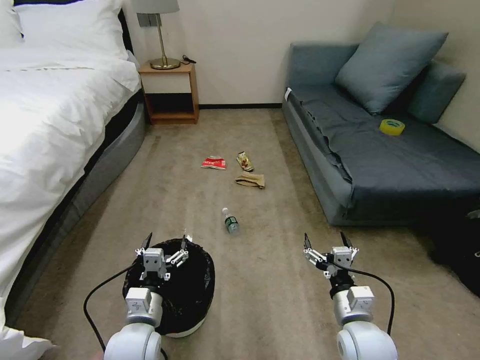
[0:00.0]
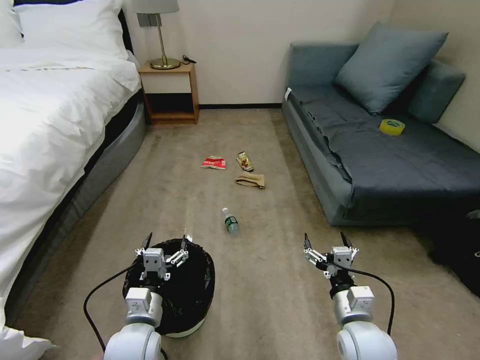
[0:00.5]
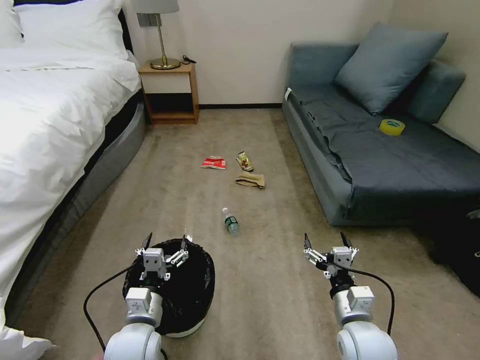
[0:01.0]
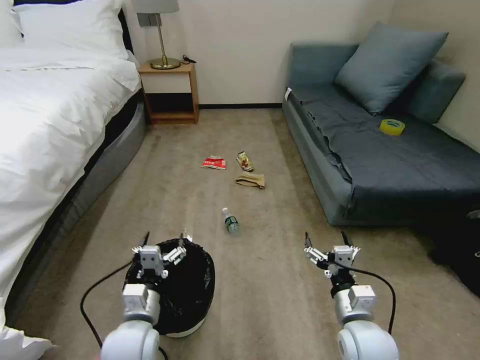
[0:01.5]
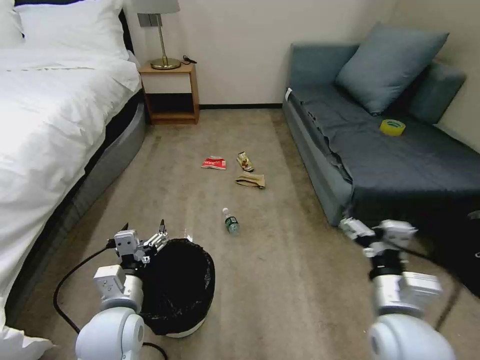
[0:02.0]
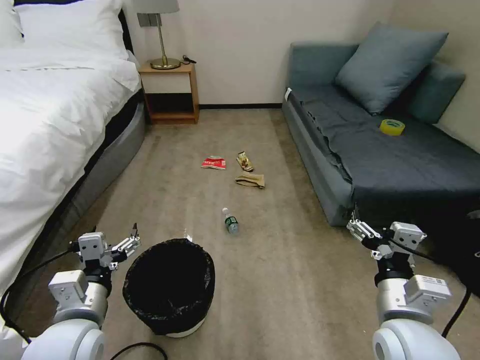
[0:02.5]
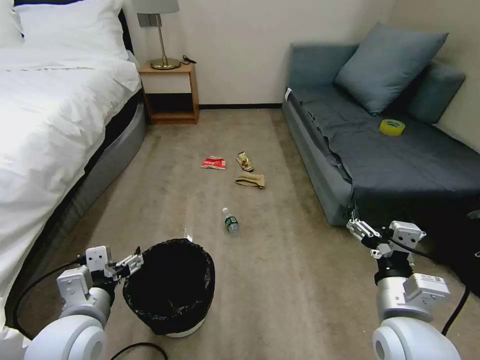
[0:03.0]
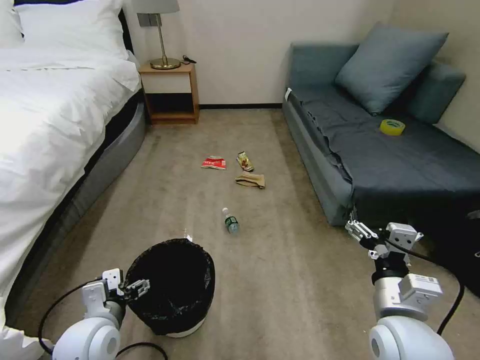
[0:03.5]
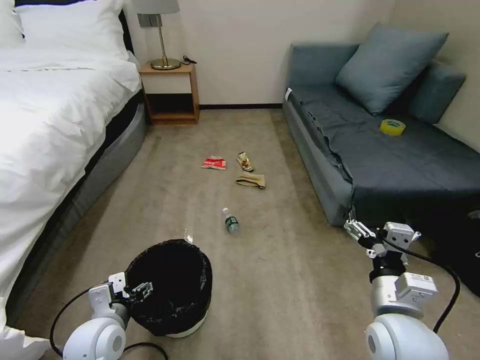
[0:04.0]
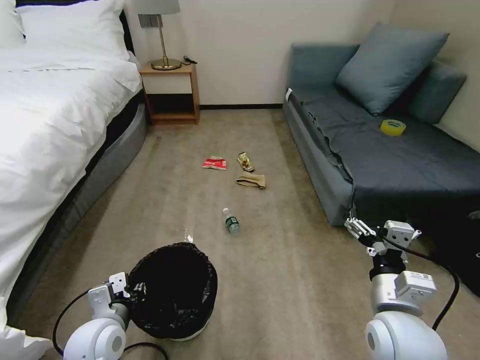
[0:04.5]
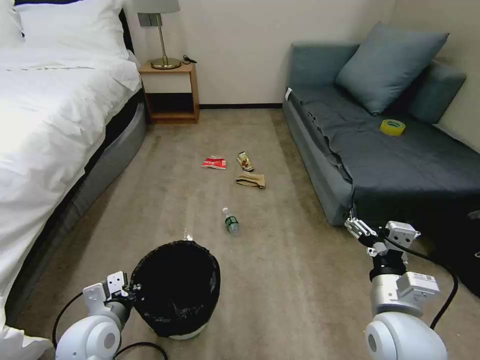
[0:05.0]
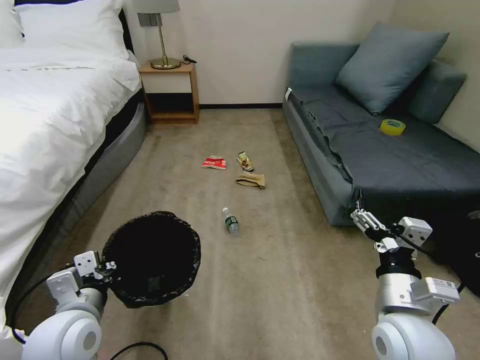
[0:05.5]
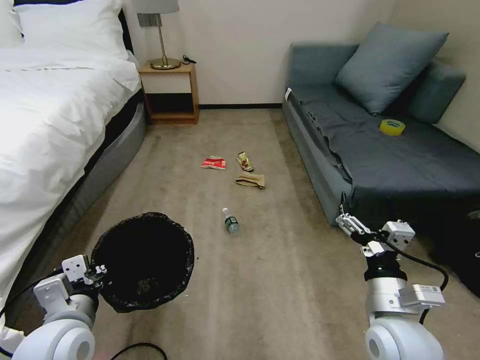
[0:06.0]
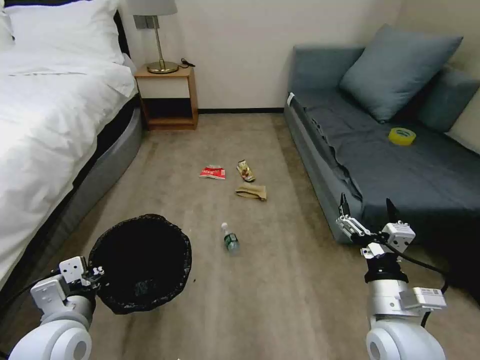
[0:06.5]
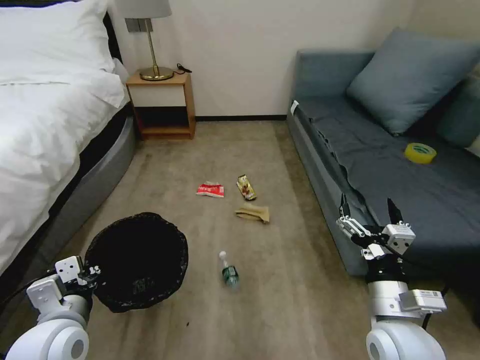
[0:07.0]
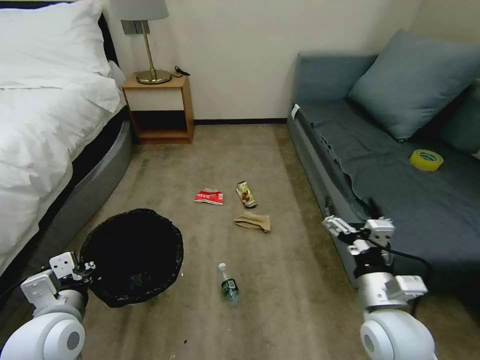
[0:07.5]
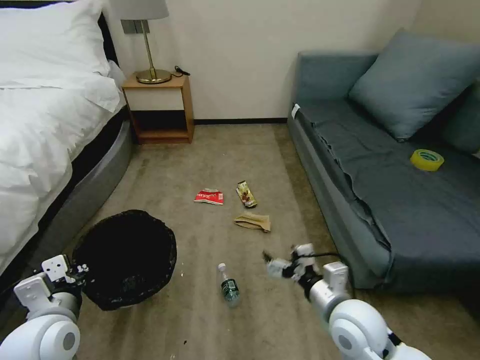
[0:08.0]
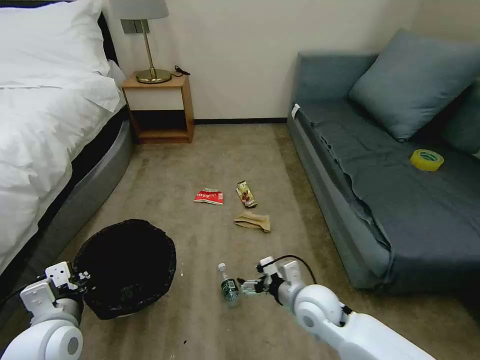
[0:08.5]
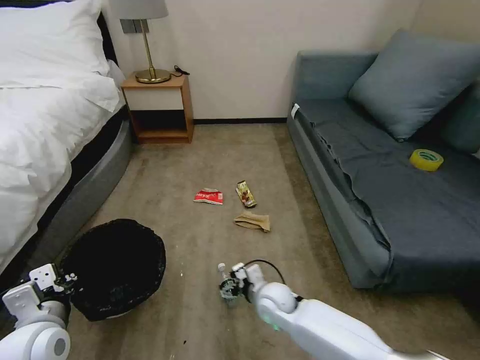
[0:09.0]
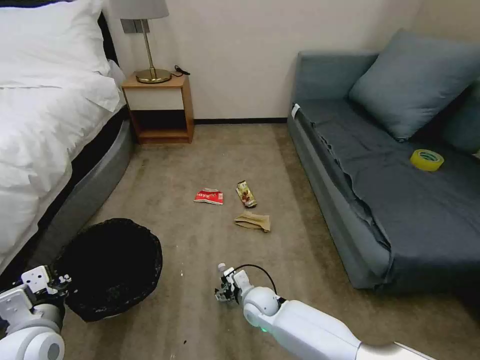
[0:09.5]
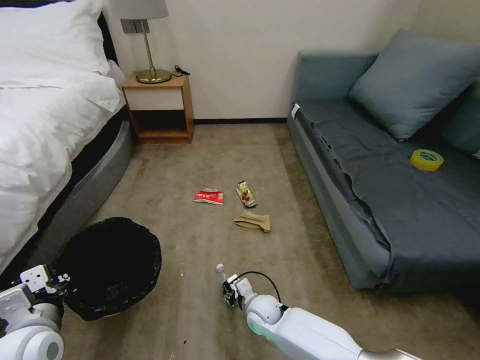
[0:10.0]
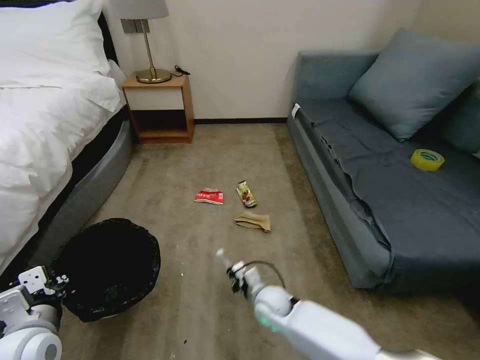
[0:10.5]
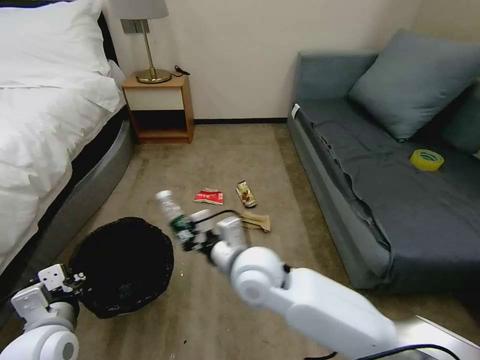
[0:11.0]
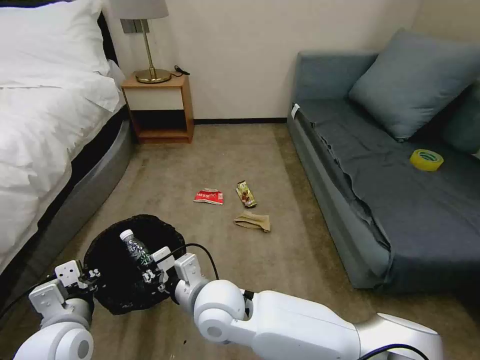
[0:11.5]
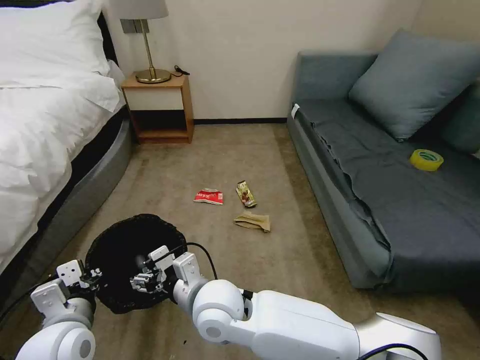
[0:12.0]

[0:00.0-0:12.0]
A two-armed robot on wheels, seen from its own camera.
Task of the whole recording: Pick up the trash bin, then pick up the garbage on the floor and place it into the trash bin.
0:02.0 to 0:04.0: The left gripper moves downward and to the left, about 10 cm.
0:04.0 to 0:06.0: The left gripper moves upward, about 10 cm, and closes its fingers.
0:06.0 to 0:08.0: The right gripper ends up some 5 cm from where it was.
0:08.0 to 0:10.0: The right gripper is displaced downward, to the left and forward by about 30 cm, and closes its fingers.
0:10.0 to 0:12.0: The right gripper moves upward and to the left, approximately 25 cm, and closes and opens again; the left gripper ends up some 5 cm from where it was.

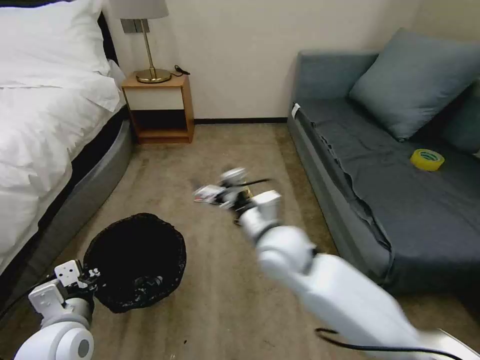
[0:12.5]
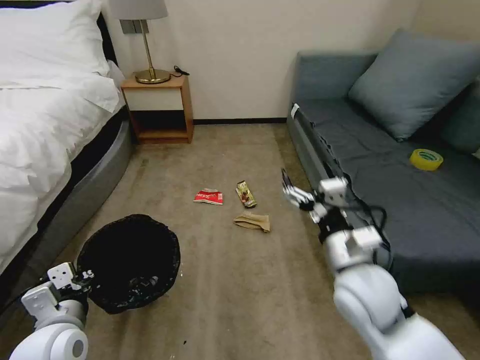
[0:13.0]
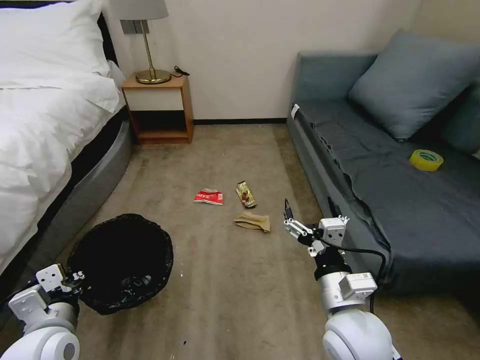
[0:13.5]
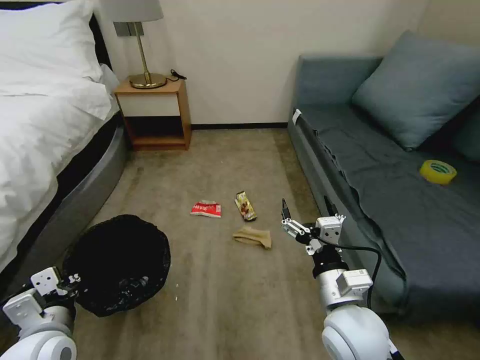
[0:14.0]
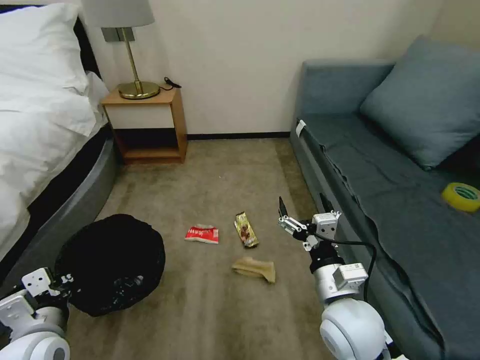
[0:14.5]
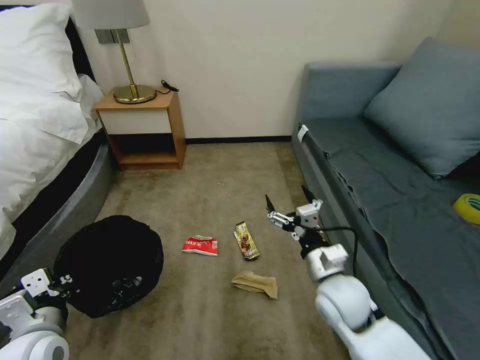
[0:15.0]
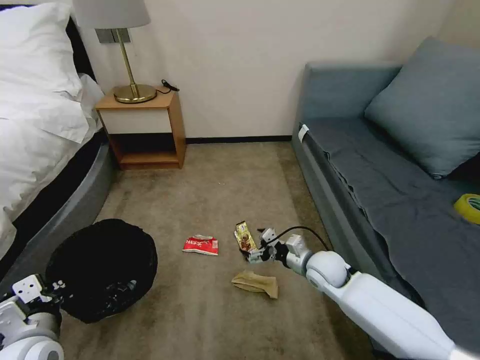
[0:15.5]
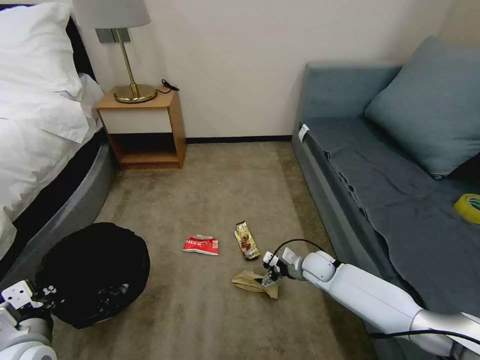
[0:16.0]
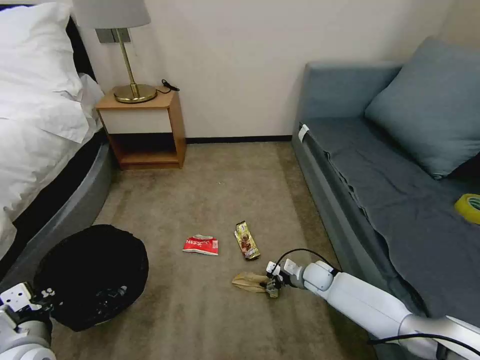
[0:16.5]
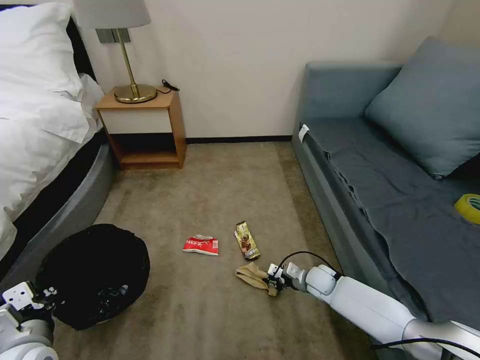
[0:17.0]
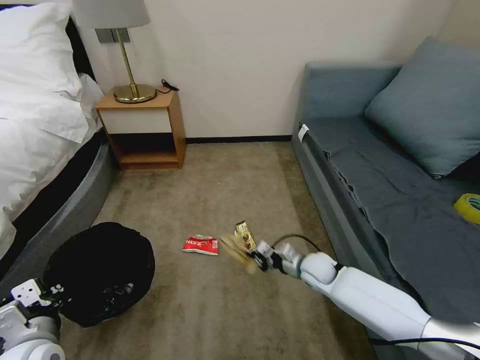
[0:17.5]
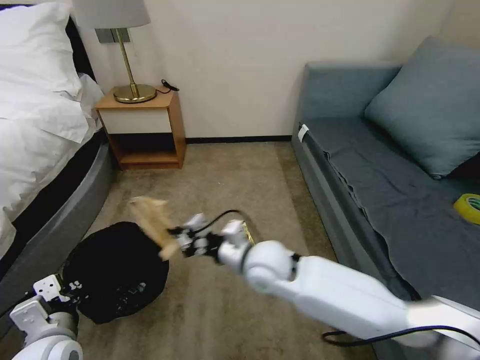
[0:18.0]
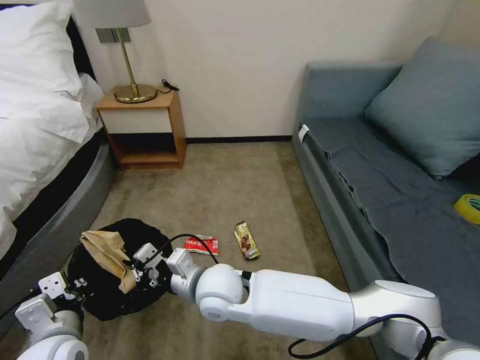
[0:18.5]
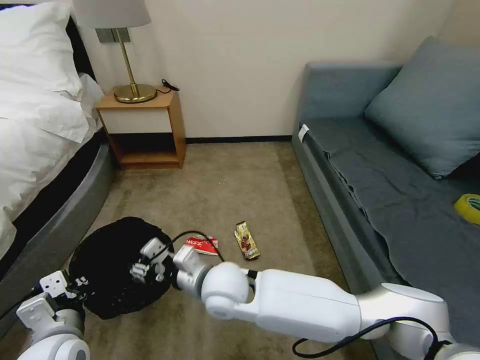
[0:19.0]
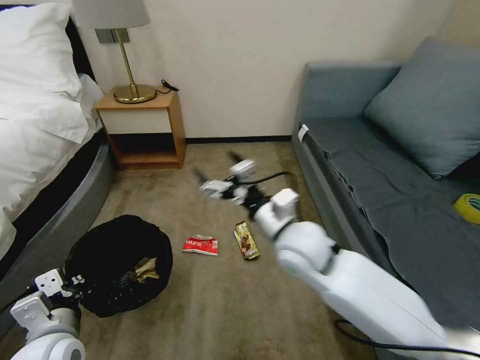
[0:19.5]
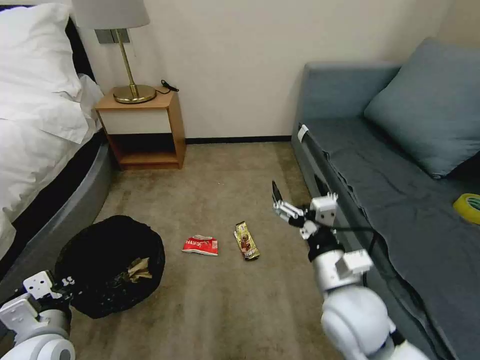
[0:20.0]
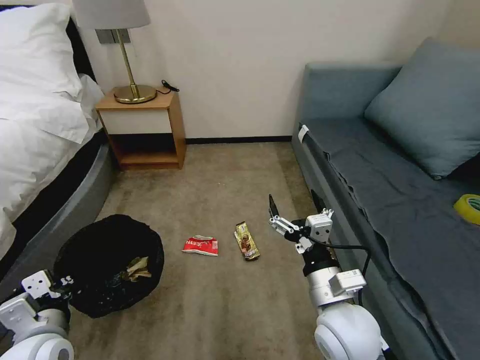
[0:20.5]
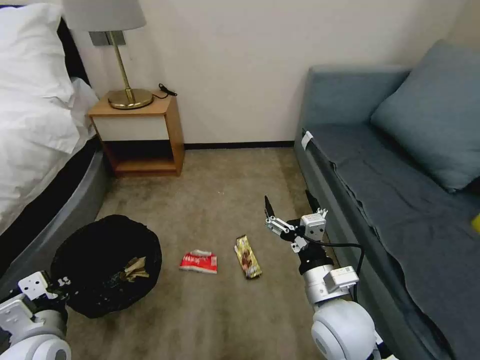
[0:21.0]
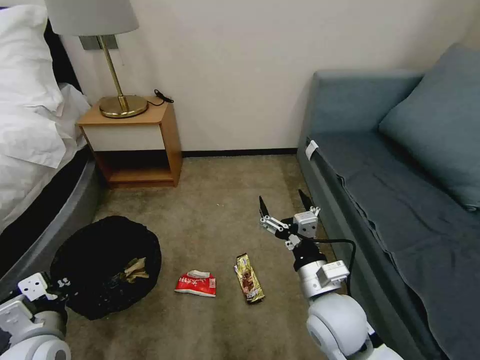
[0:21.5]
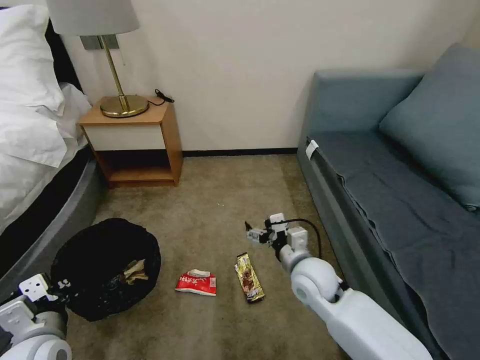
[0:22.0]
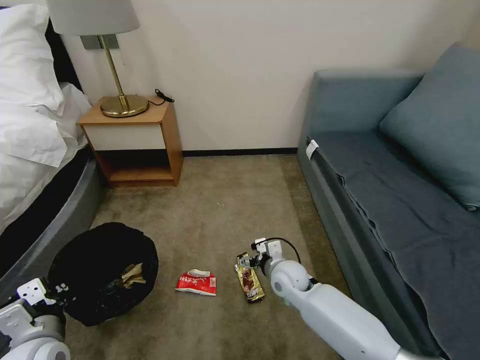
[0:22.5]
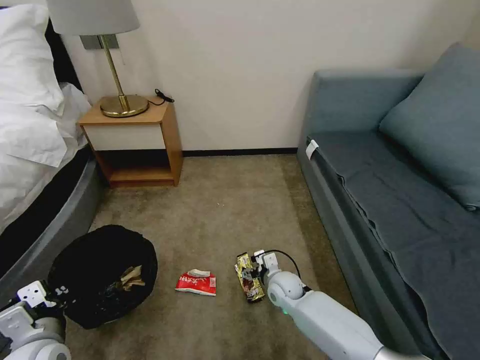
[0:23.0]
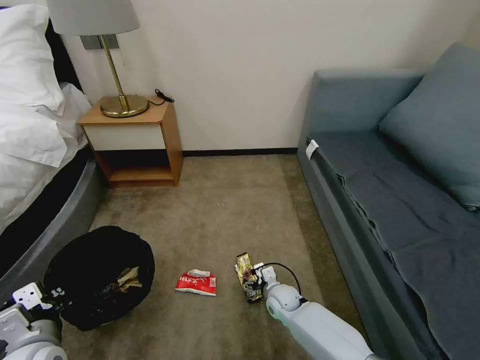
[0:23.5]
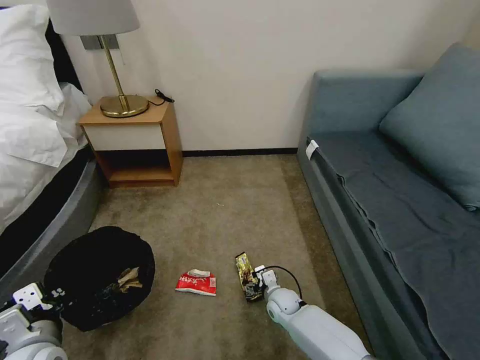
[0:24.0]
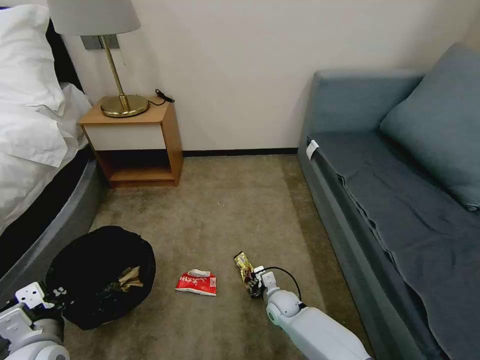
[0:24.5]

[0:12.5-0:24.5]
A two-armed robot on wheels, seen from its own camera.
Task of the whole recording: Pick up the trash bin, then pick up the garbage on the floor and place it into the trash bin.
0:12.5 to 0:14.5: The right gripper travels to the right and backward by approximately 15 cm.
0:14.5 to 0:16.5: The right gripper is displaced downward and forward by about 30 cm.
0:16.5 to 0:18.5: The right gripper is displaced to the left, upward and backward by roughly 40 cm, and closes up; the left gripper moves about 5 cm.
0:18.5 to 0:20.5: The right gripper is displaced to the right by some 20 cm, and opens up.
0:20.5 to 0:22.5: The right gripper heads forward and downward, covering roughly 20 cm.
0:22.5 to 0:24.5: The right gripper travels downward by approximately 15 cm, and closes.

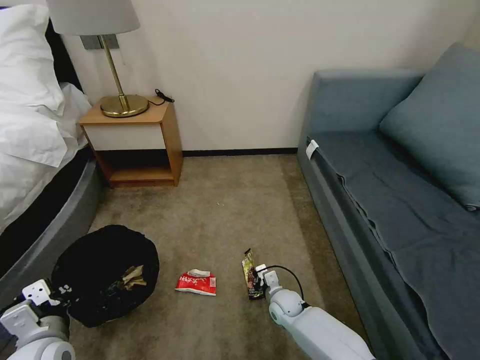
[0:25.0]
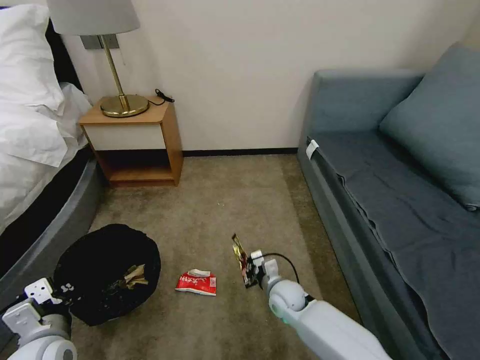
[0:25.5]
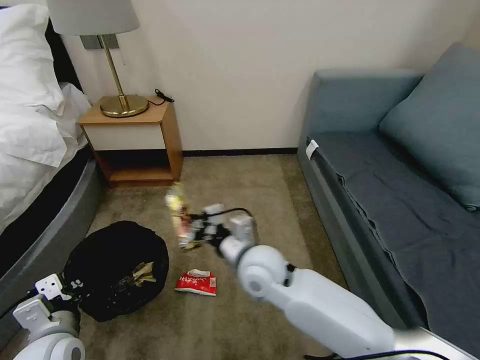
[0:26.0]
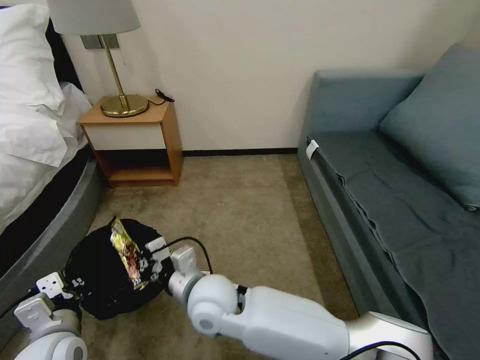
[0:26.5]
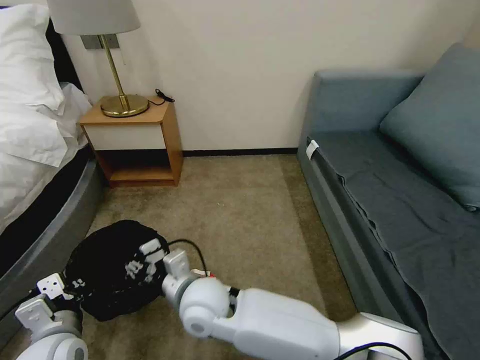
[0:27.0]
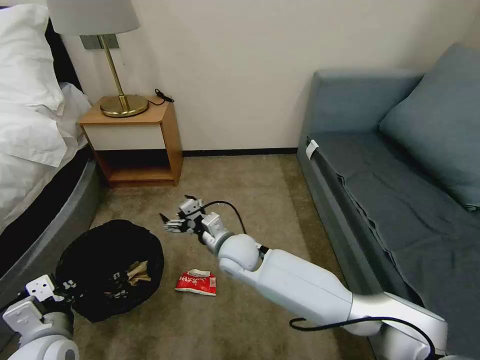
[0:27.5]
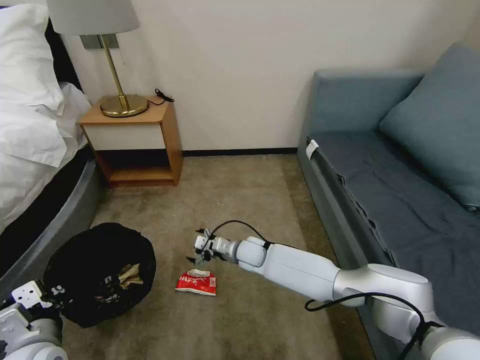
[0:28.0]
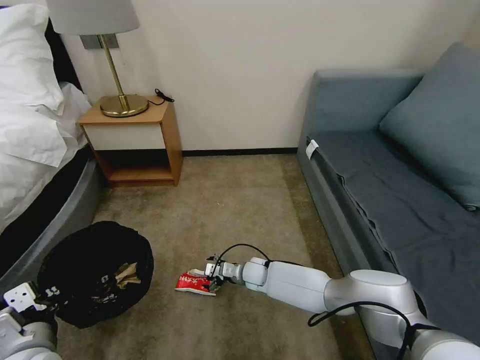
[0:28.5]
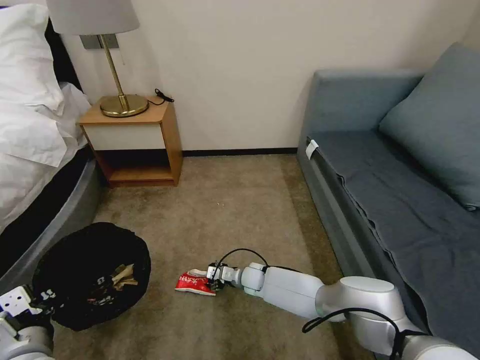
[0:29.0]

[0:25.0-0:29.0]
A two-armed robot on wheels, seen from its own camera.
Task of the whole recording: Pick up the trash bin, then pick up the garbage on the floor and place it into the trash bin.
0:25.0 to 0:27.0: The right gripper heads upward and to the left, covering some 35 cm, and opens its fingers.
0:27.0 to 0:29.0: The right gripper goes roughly 30 cm downward, forward and to the right.
